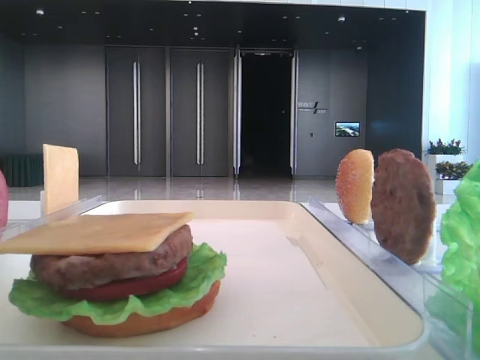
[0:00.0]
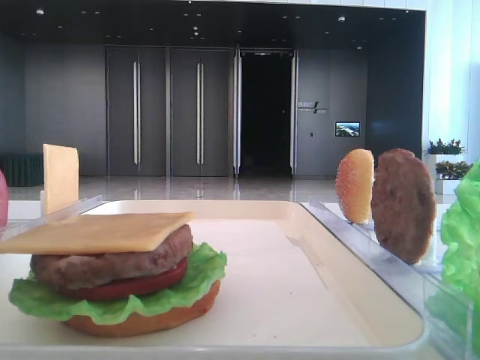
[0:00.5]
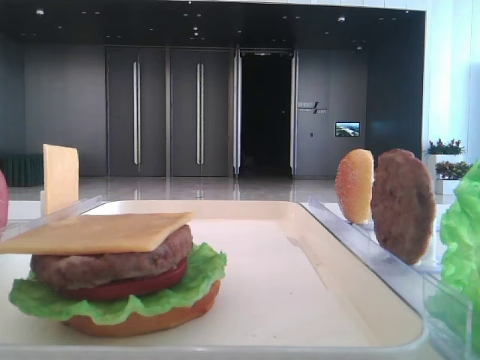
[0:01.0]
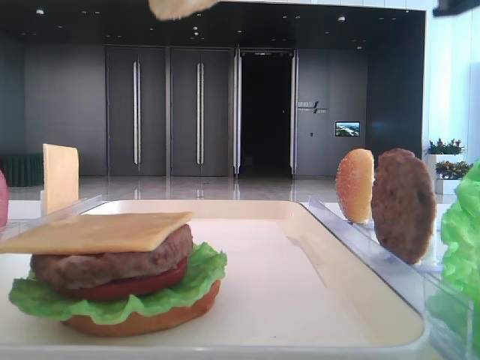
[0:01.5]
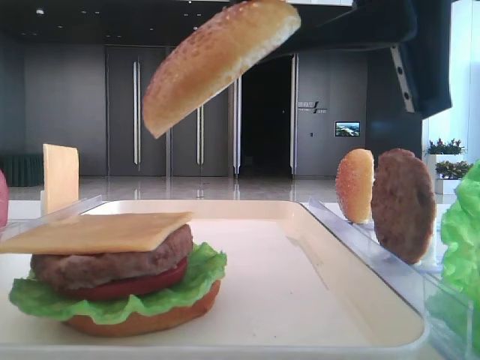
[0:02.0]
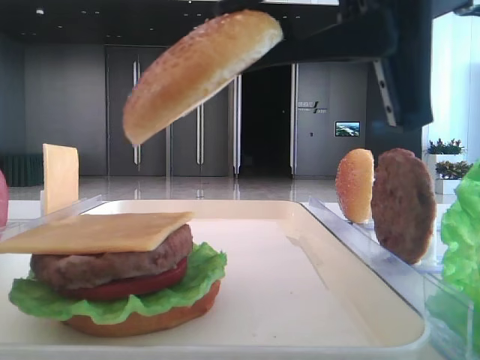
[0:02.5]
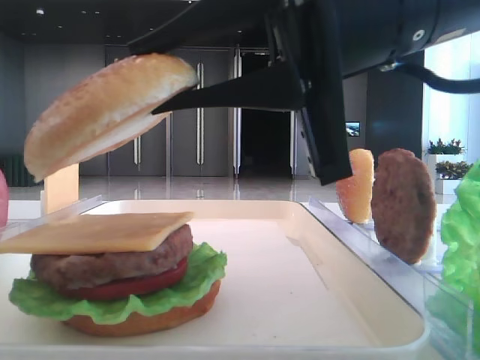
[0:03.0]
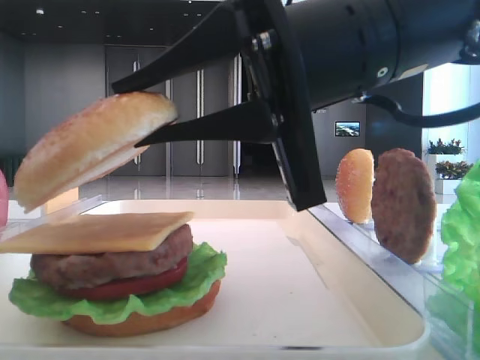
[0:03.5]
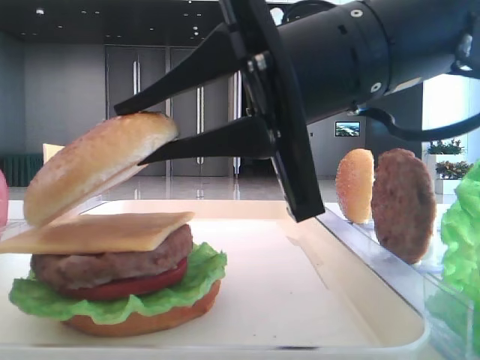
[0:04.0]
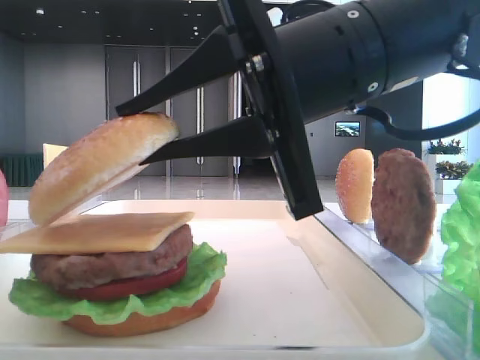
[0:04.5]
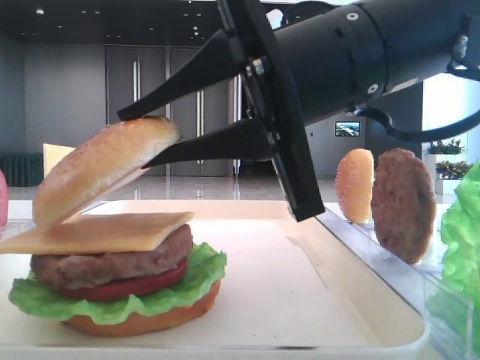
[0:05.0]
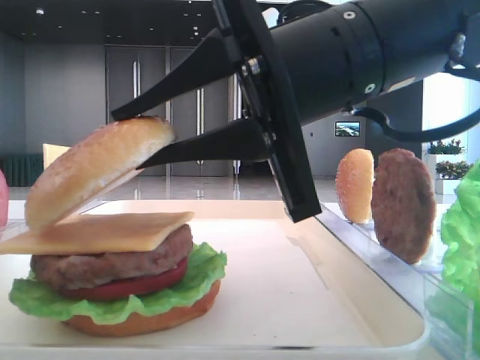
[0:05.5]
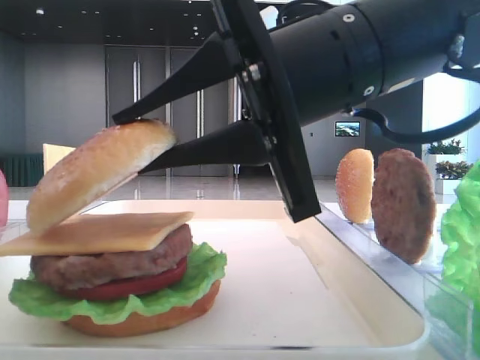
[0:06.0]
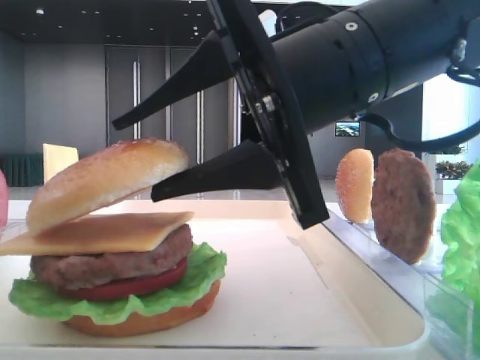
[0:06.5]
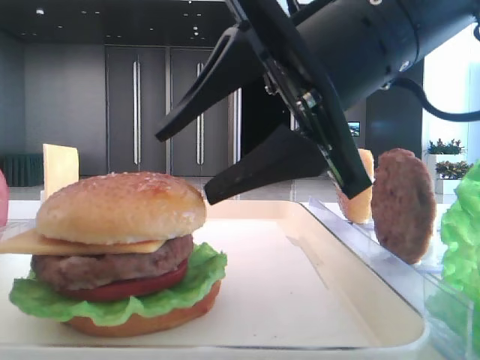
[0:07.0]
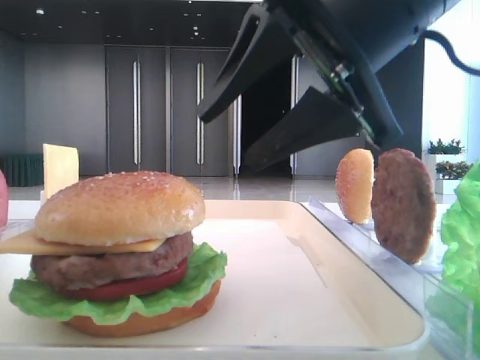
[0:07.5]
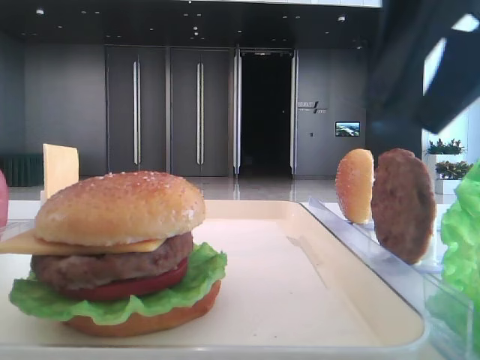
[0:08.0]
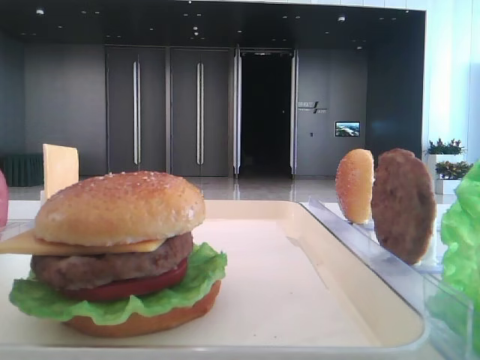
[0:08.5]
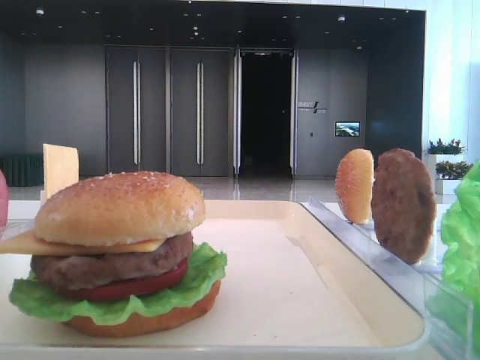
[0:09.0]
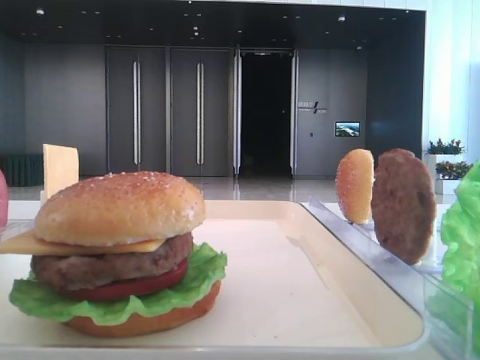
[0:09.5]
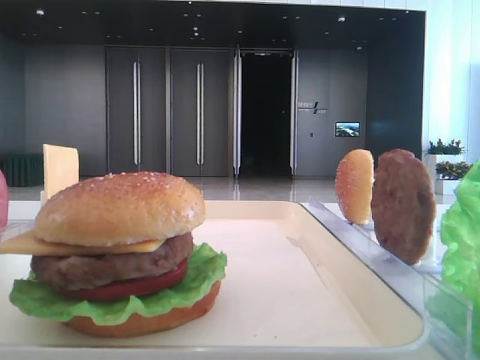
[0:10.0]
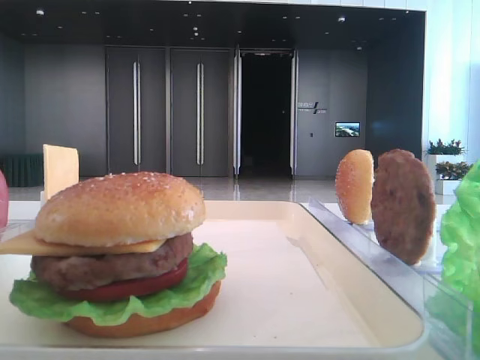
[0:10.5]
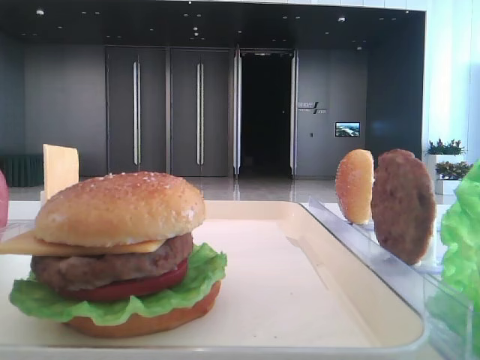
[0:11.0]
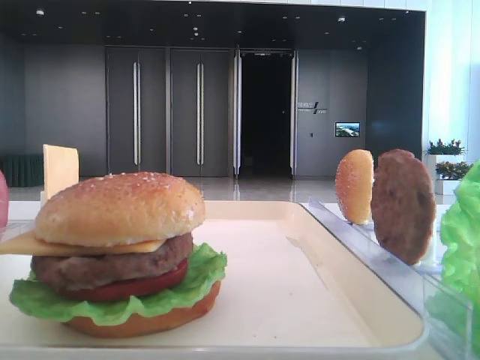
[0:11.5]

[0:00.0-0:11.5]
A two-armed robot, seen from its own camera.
Step, 0:00.0 to 0:06.5: Place the top bread slice on the cheese with the right hand.
0:00.0 to 0:02.0: The right gripper shifts roughly 20 cm downward, forward and to the left.
0:02.0 to 0:04.0: The right gripper heads downward and to the left, covering approximately 10 cm.
0:04.0 to 0:06.0: Both grippers stay put.
0:06.0 to 0:07.5: The right gripper opens its fingers.
0:07.5 to 0:09.5: The right gripper moves to the right, backward and upward, roughly 25 cm.

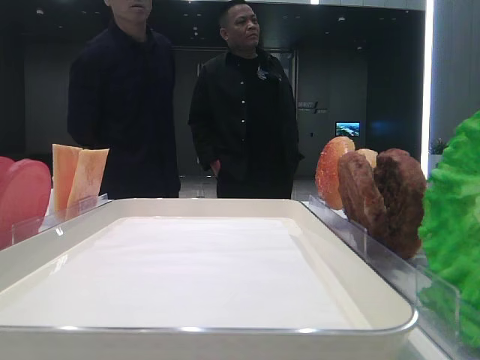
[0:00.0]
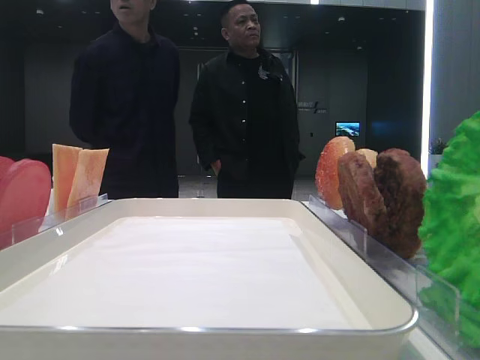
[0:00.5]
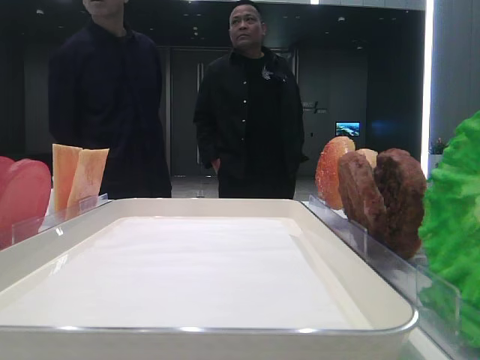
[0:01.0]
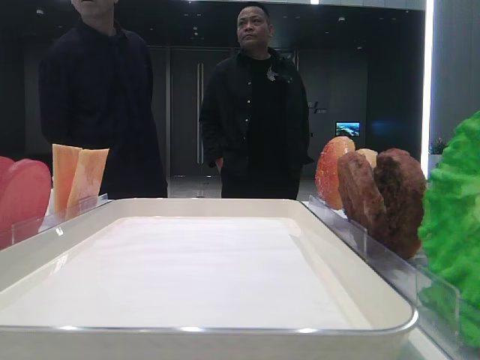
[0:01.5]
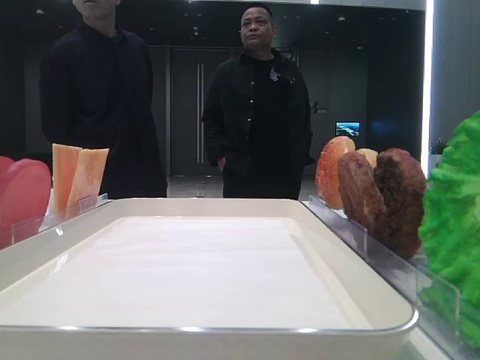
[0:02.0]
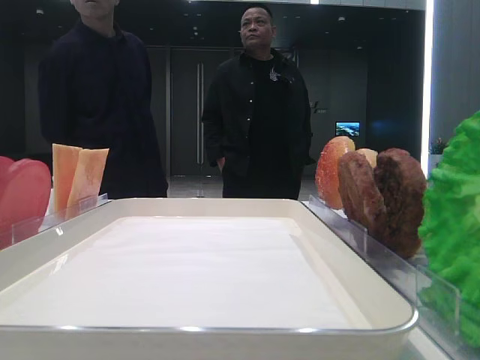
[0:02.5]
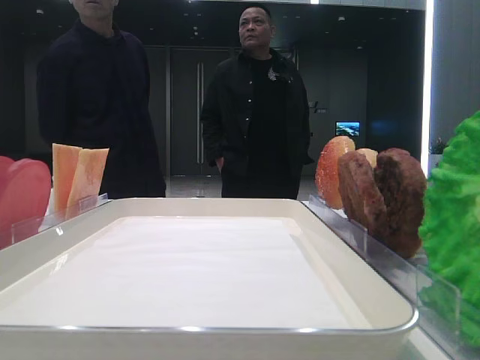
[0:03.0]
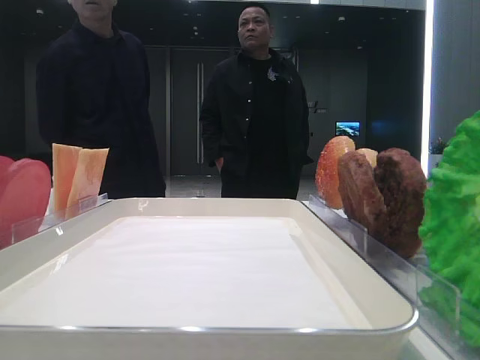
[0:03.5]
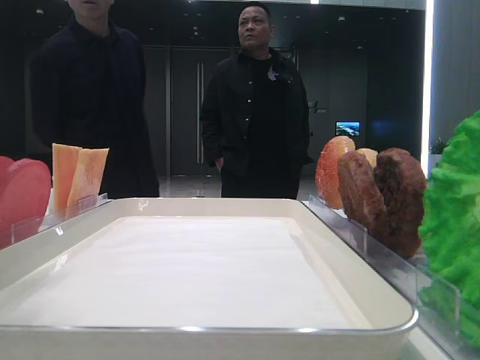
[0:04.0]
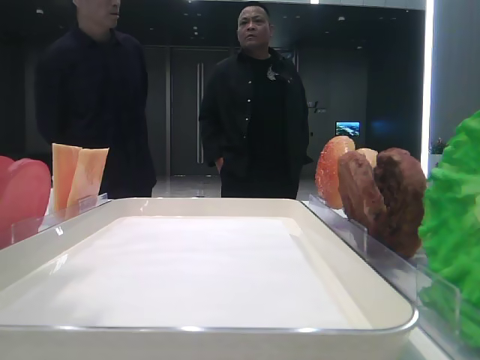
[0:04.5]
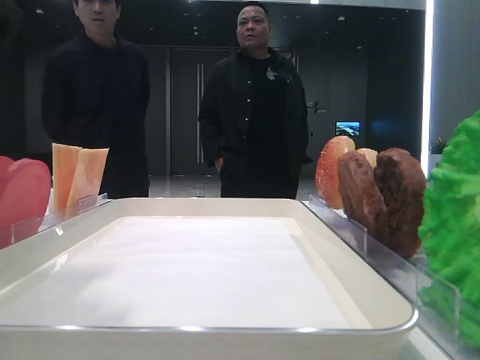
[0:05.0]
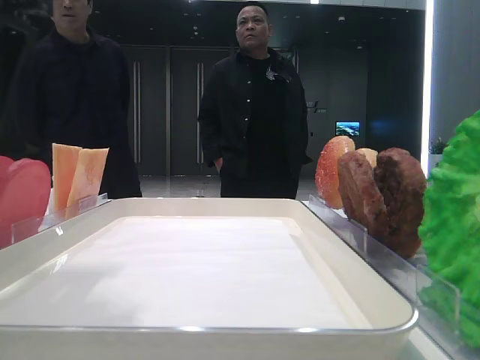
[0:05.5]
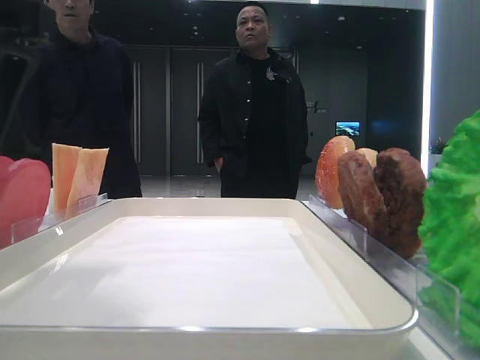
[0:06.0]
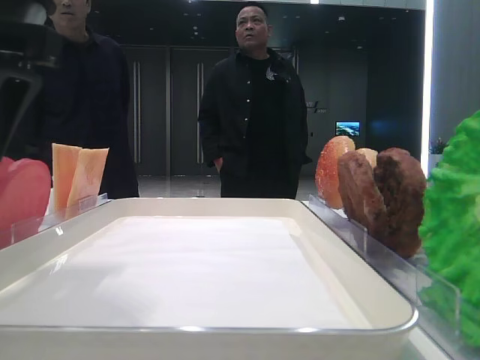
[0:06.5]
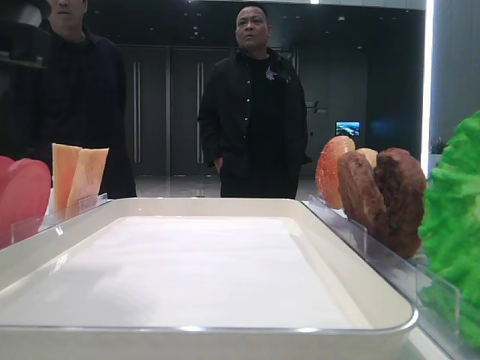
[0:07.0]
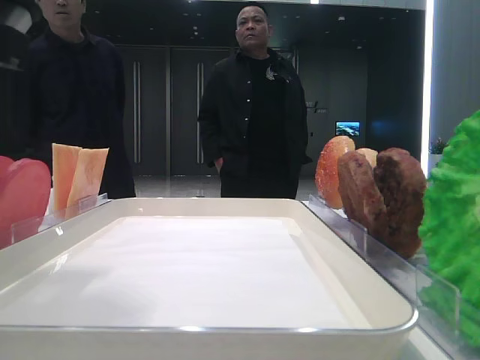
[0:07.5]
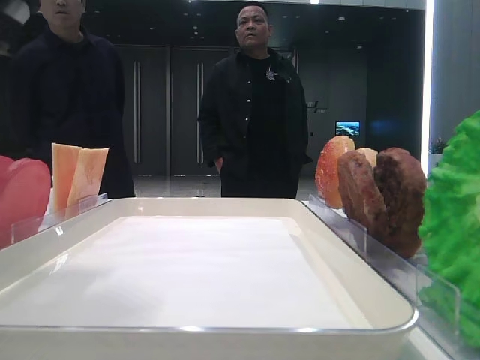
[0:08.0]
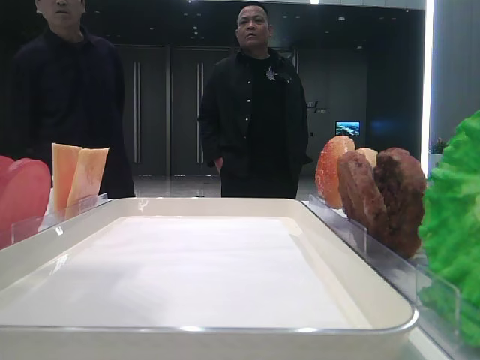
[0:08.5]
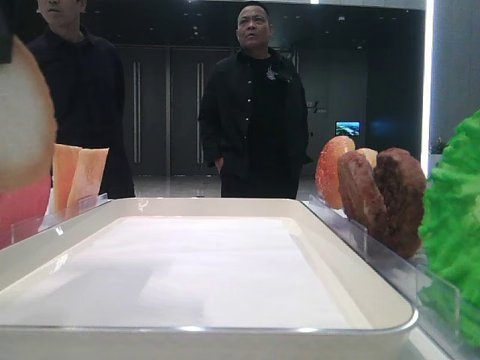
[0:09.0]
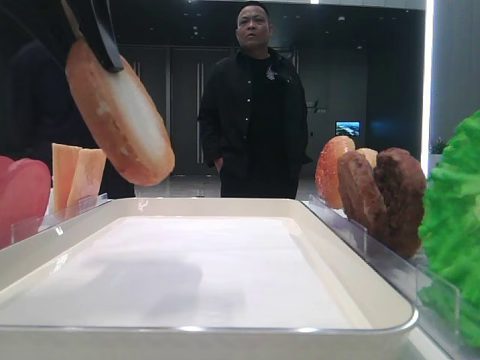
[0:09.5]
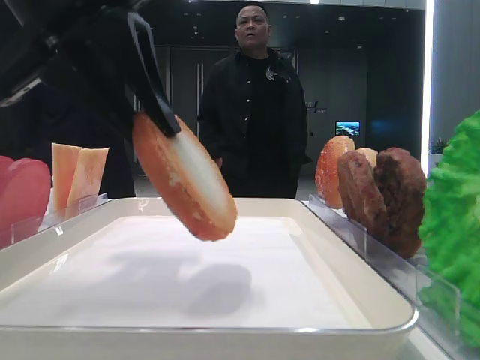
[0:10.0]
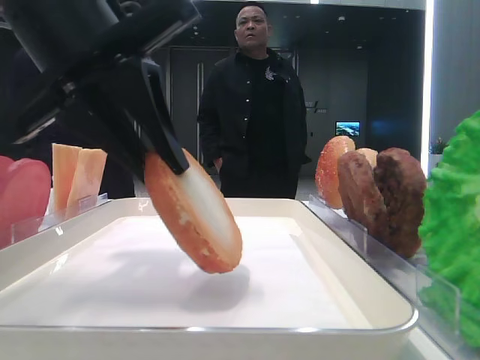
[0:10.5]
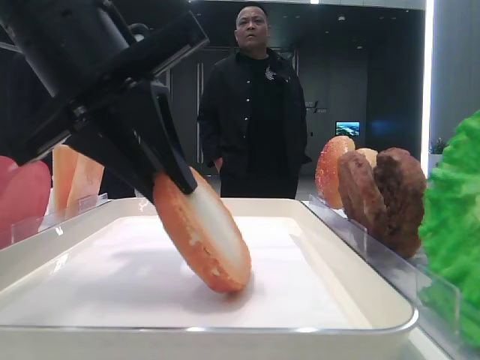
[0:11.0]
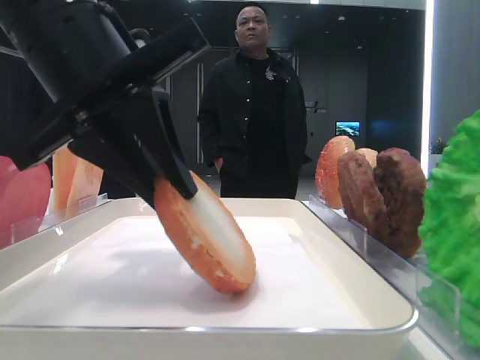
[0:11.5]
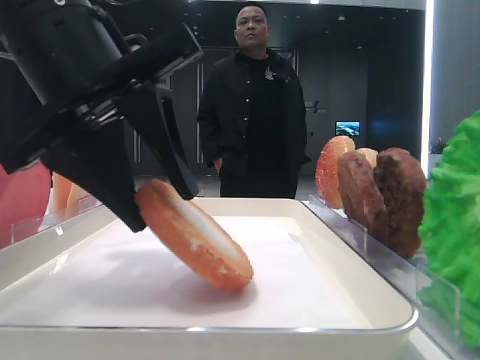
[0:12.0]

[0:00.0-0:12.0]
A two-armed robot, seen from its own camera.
Step, 0:00.0 to 0:06.5: Pick up the bottom bread slice with the left hand.
0:02.0 to 0:04.0: The left gripper goes about 15 cm forward and to the right.
0:04.0 to 0:06.0: The left gripper travels downward by some 5 cm.
0:06.0 to 0:08.0: The left gripper closes up.
0:08.0 to 0:10.0: The left gripper changes place by some 5 cm.
0:10.0 to 0:12.0: There are only small adjustments of the grippers.

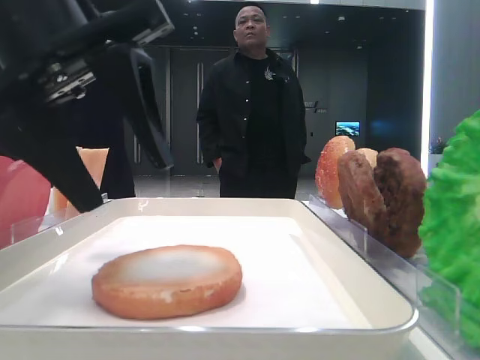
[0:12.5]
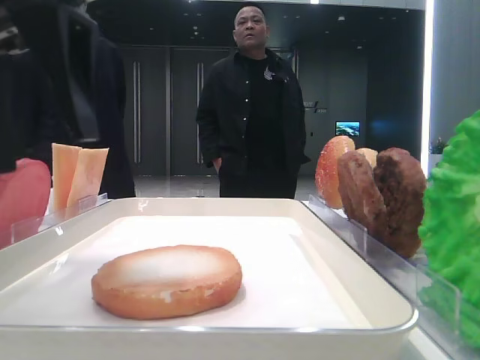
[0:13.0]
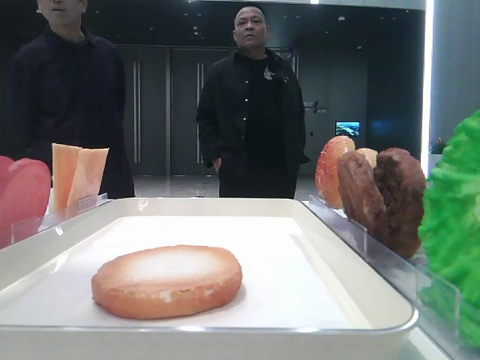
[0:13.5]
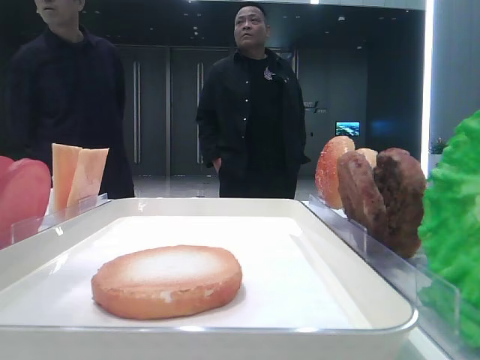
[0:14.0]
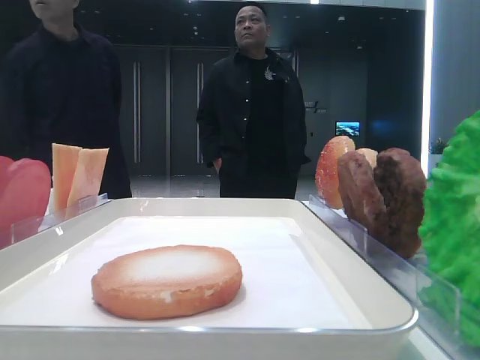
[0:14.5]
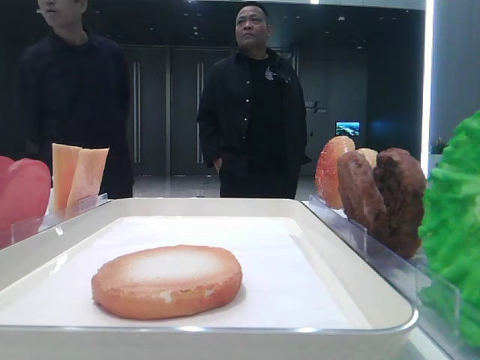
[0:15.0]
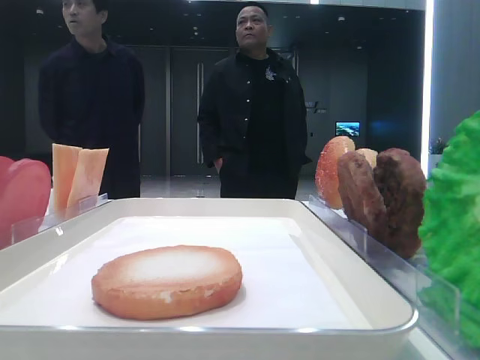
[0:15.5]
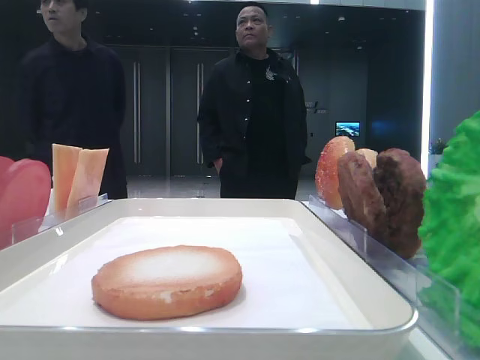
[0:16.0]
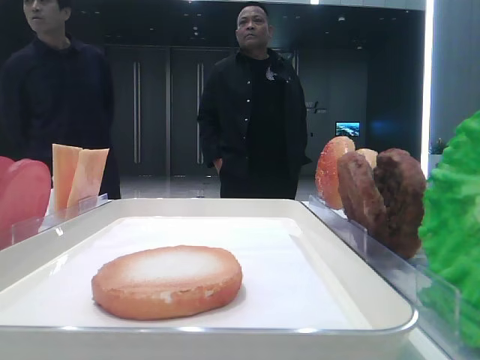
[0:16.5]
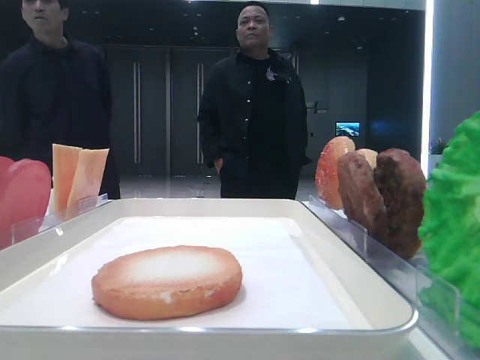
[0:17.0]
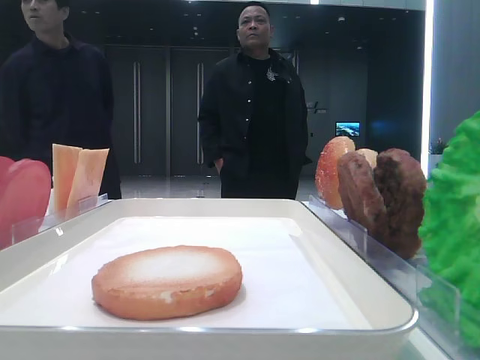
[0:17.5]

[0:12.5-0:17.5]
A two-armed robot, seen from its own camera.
0:12.5 to 0:15.0: The left gripper goes approximately 25 cm to the left and upward.
0:15.0 to 0:17.5: The left gripper travels backward and downward by roughly 20 cm.
